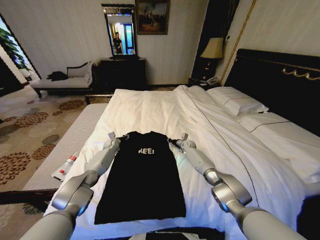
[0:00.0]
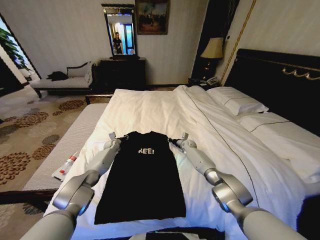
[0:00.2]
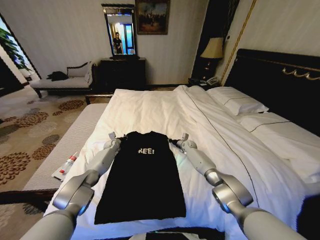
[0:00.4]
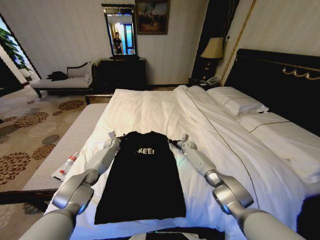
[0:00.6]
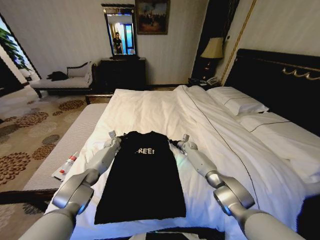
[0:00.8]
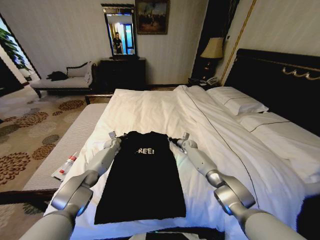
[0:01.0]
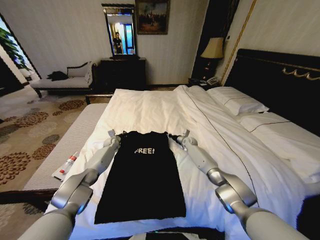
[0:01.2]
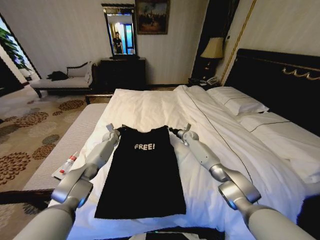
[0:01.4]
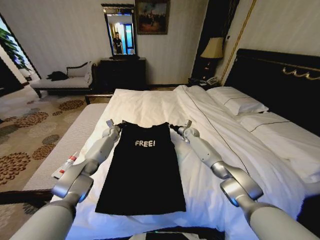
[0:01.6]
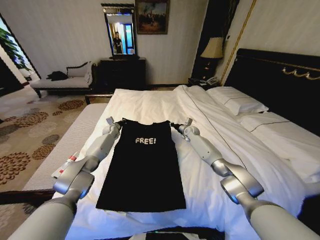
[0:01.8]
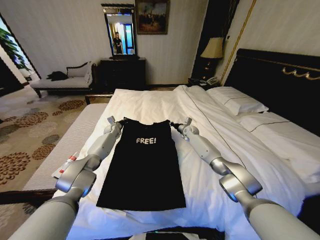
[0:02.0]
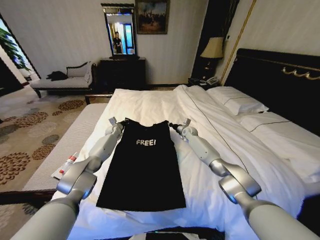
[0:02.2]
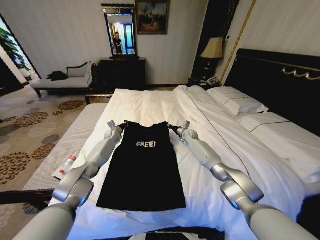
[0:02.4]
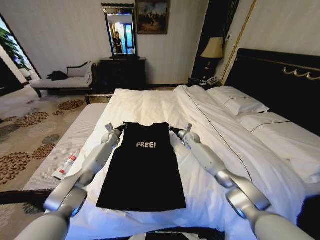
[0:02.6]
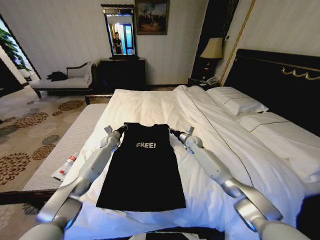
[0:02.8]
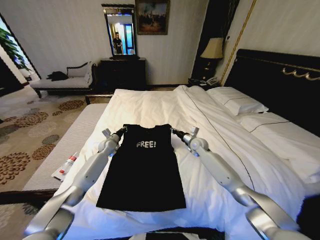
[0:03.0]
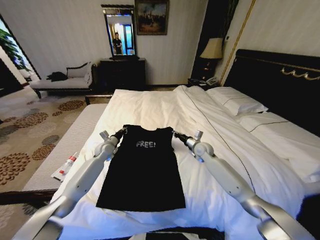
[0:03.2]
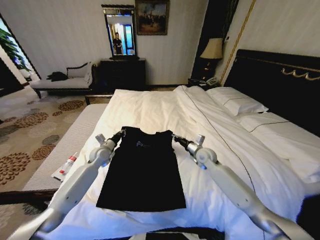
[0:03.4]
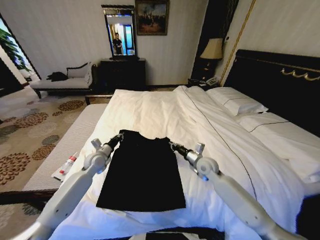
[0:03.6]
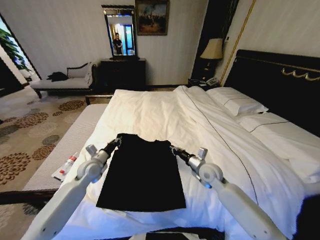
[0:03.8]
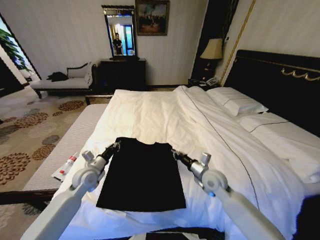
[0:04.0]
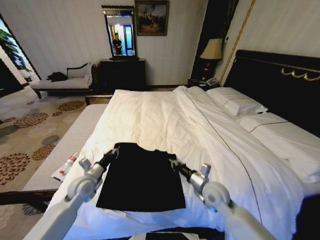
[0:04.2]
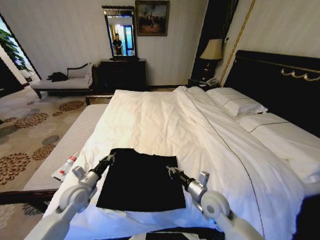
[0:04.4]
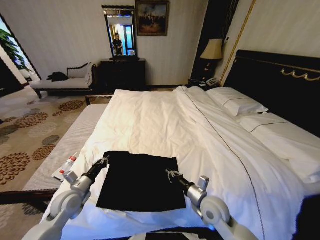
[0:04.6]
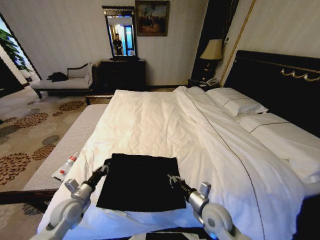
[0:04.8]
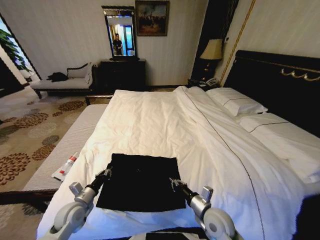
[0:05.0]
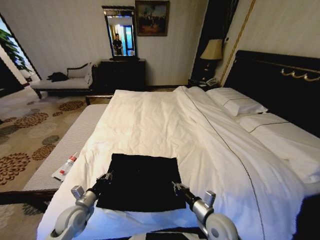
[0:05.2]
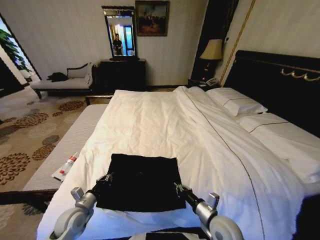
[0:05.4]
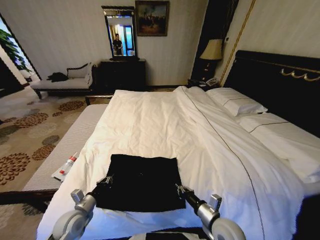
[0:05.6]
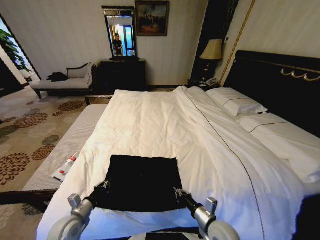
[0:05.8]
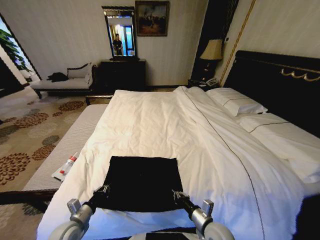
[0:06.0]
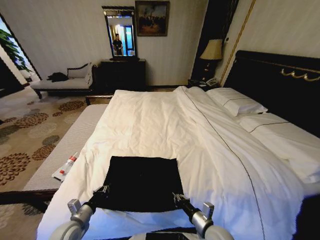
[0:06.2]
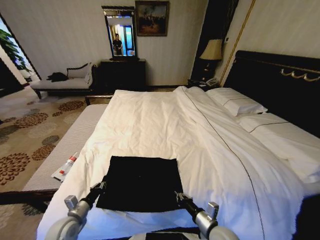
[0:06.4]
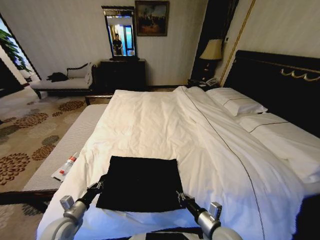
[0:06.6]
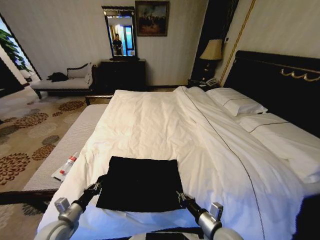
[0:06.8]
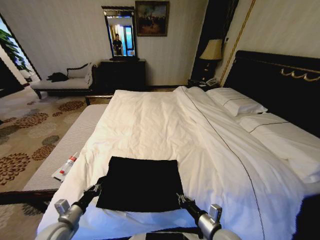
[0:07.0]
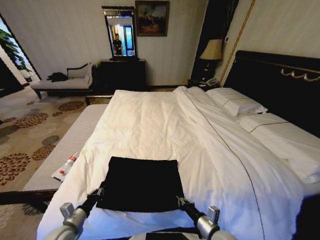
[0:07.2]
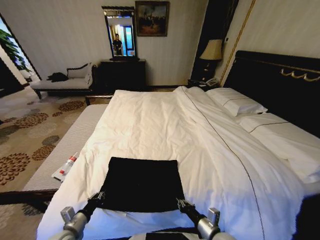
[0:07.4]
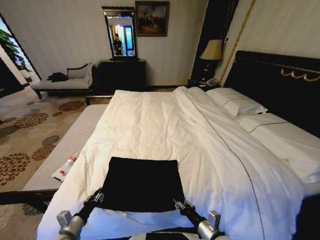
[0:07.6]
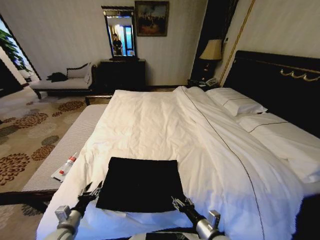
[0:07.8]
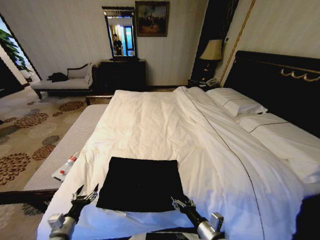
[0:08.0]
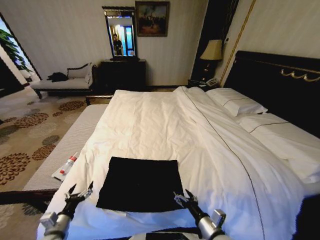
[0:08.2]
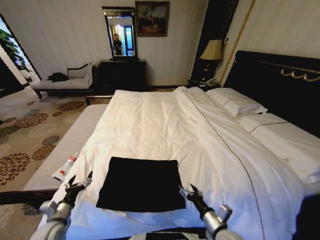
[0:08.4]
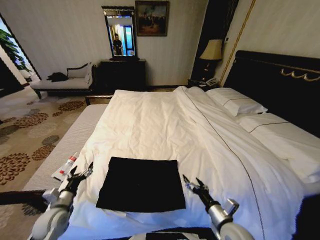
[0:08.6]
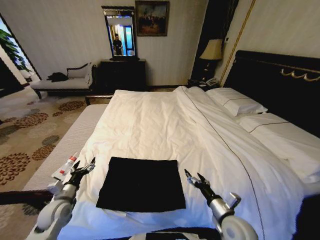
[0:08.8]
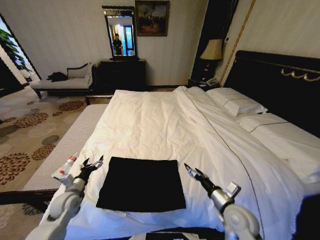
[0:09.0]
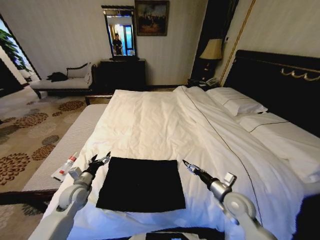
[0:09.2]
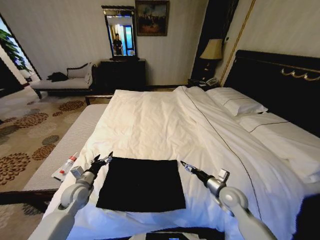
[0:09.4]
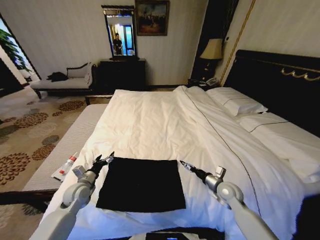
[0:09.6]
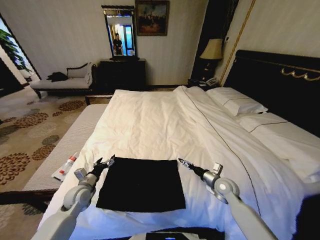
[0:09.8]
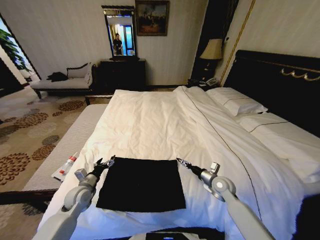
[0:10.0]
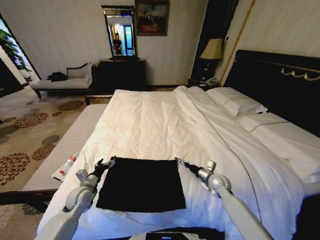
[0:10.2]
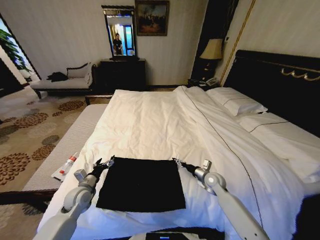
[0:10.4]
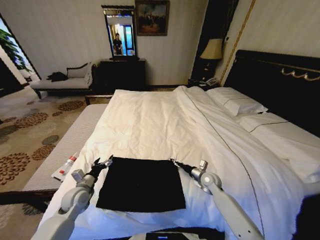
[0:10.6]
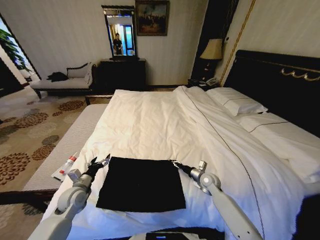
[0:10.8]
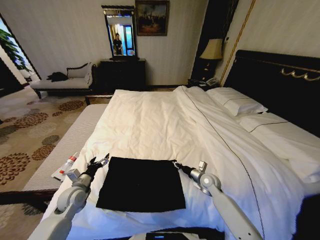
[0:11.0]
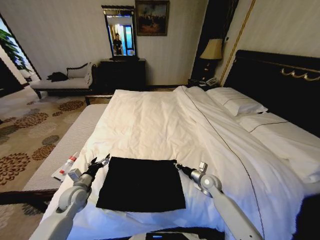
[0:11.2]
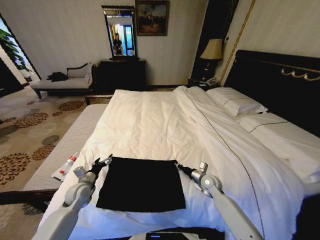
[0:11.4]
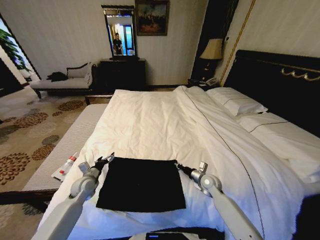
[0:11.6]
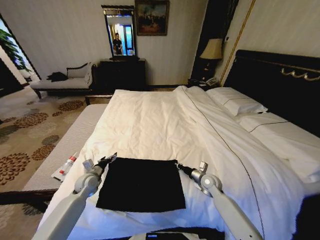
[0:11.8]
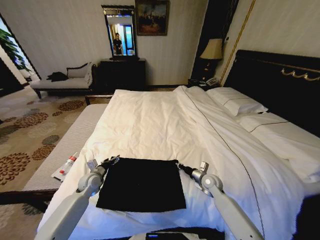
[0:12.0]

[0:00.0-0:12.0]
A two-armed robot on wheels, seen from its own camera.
Task of the whole recording: Fold the clothes on the bed.
0:00.0 to 0:01.6: The two grippers go some 10 cm upward. The left gripper closes its fingers.
0:01.6 to 0:03.0: Both grippers travel together backward, some 10 cm.
0:03.0 to 0:04.4: Both grippers travel together backward, approximately 30 cm.
0:04.4 to 0:06.0: The grippers both shift backward and downward by approximately 10 cm.
0:06.0 to 0:07.6: The grippers make only small movements.
0:07.6 to 0:09.0: The right gripper shifts approximately 10 cm forward, upward and to the right, and opens. Meanwhile the left gripper goes some 15 cm forward, and opens.
0:09.0 to 0:10.4: The right gripper goes roughly 15 cm forward and downward.
0:10.4 to 0:12.0: The right gripper closes its fingers; the left gripper heads forward, covering some 10 cm.

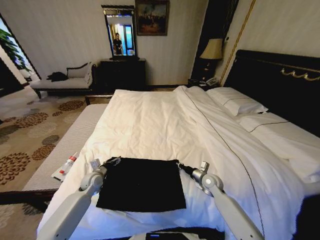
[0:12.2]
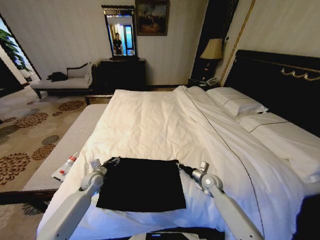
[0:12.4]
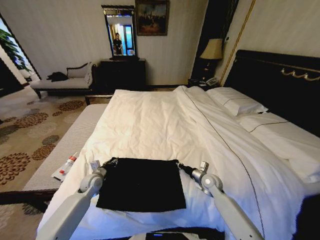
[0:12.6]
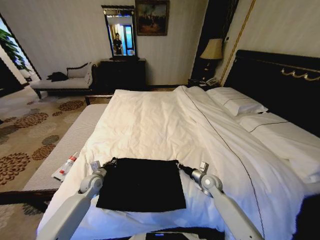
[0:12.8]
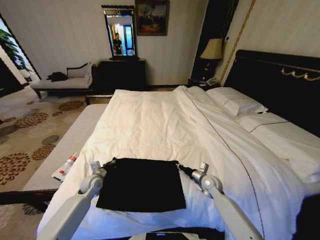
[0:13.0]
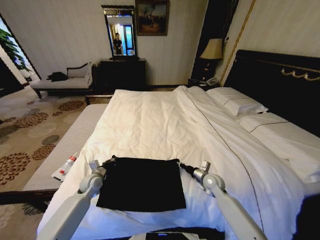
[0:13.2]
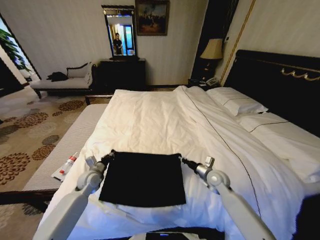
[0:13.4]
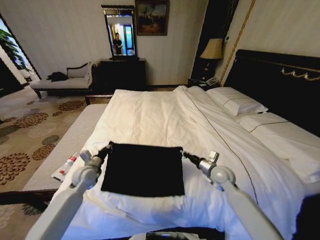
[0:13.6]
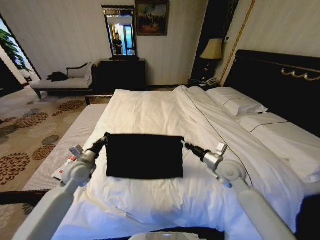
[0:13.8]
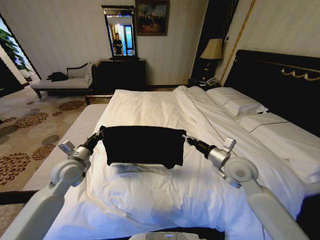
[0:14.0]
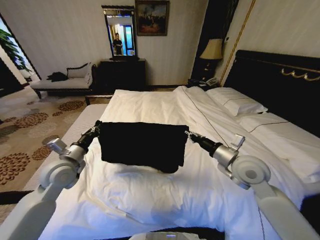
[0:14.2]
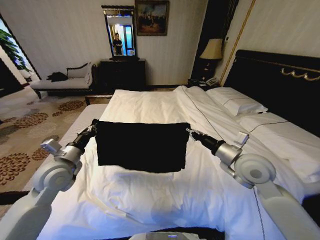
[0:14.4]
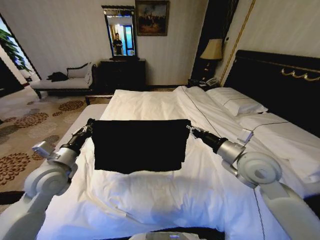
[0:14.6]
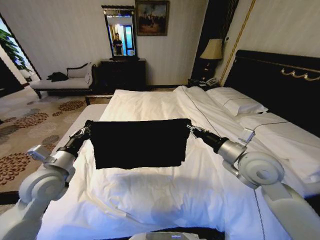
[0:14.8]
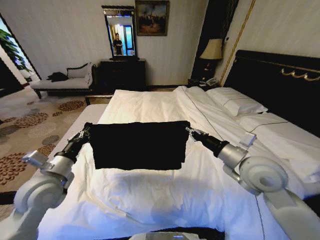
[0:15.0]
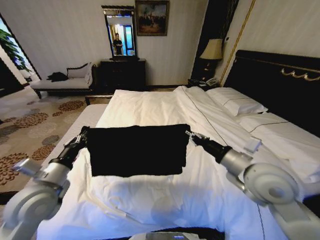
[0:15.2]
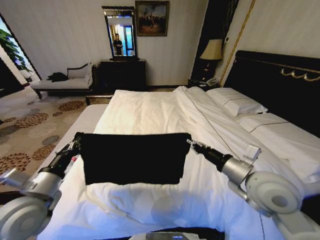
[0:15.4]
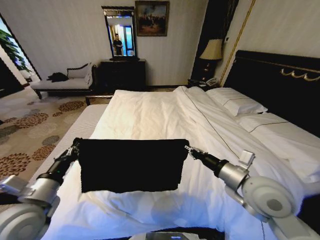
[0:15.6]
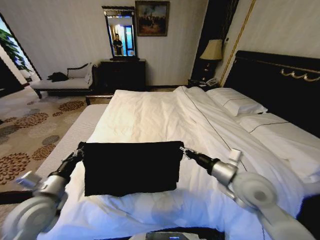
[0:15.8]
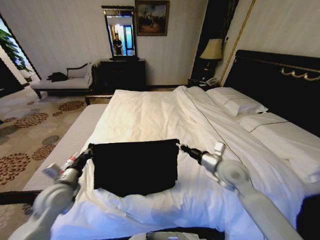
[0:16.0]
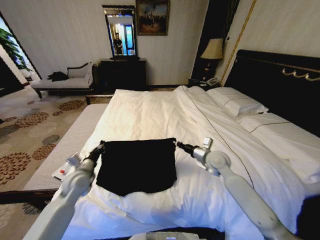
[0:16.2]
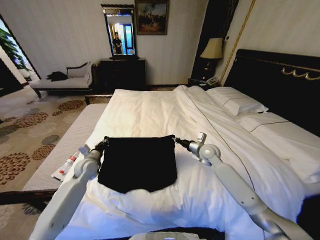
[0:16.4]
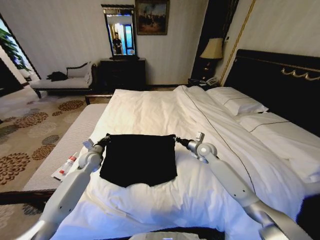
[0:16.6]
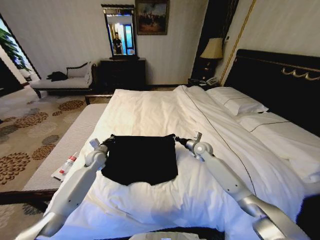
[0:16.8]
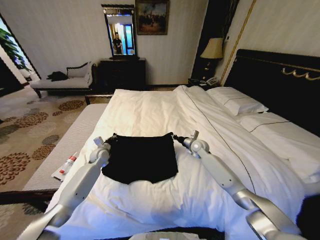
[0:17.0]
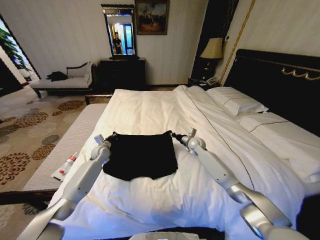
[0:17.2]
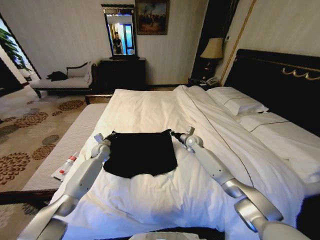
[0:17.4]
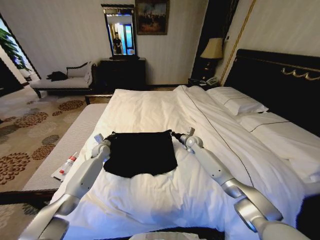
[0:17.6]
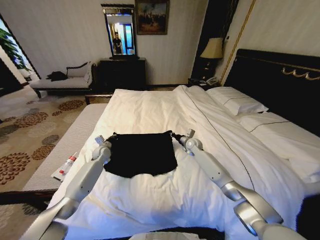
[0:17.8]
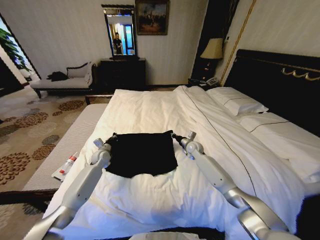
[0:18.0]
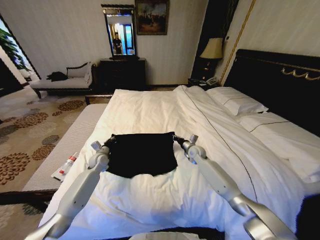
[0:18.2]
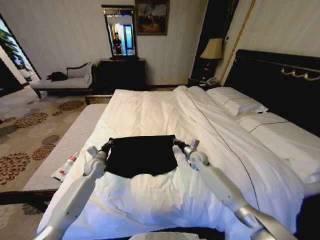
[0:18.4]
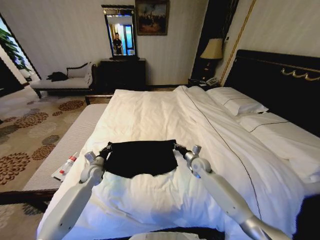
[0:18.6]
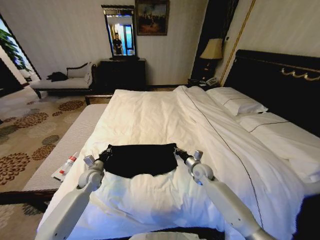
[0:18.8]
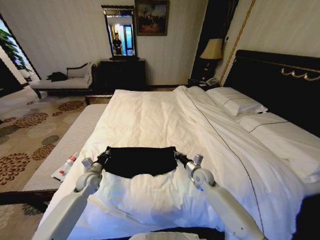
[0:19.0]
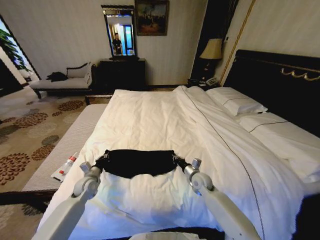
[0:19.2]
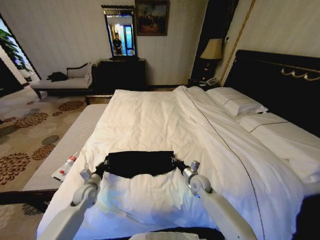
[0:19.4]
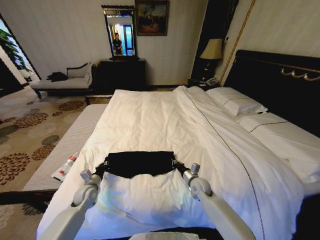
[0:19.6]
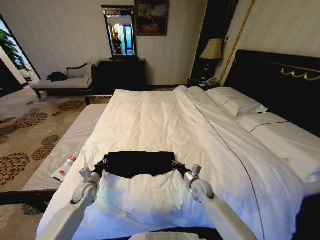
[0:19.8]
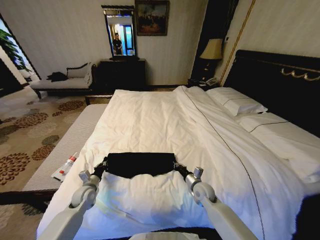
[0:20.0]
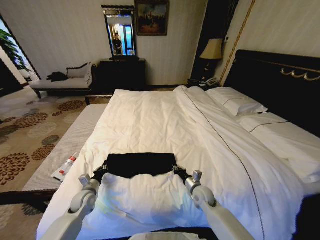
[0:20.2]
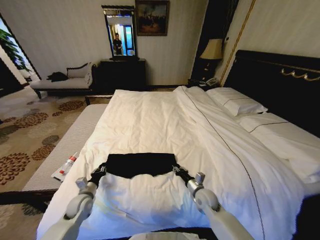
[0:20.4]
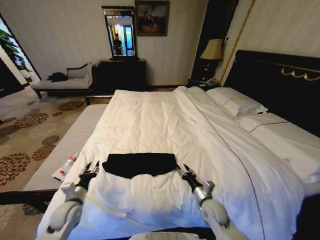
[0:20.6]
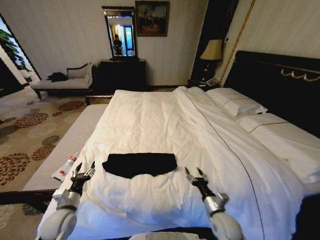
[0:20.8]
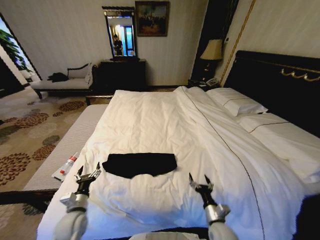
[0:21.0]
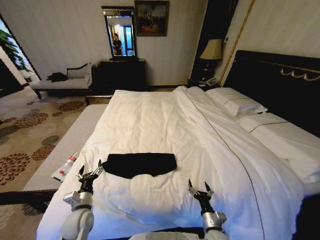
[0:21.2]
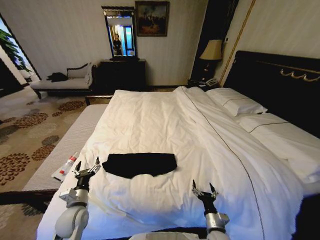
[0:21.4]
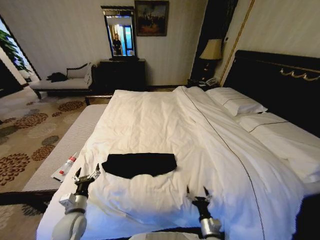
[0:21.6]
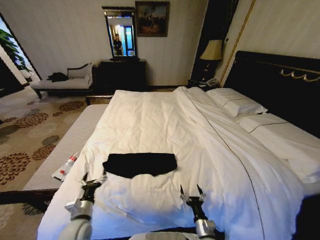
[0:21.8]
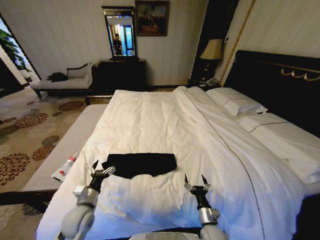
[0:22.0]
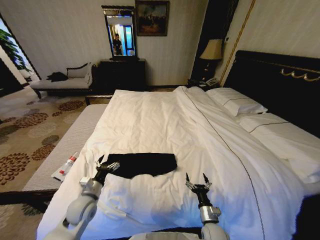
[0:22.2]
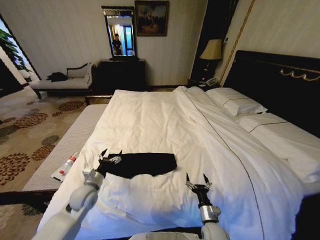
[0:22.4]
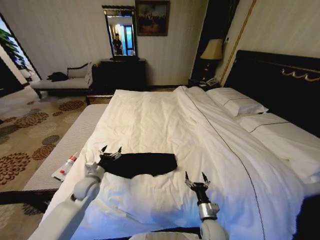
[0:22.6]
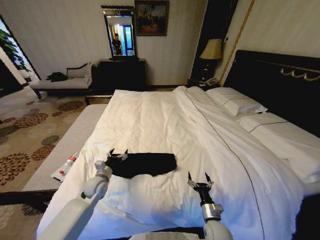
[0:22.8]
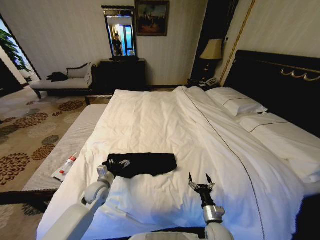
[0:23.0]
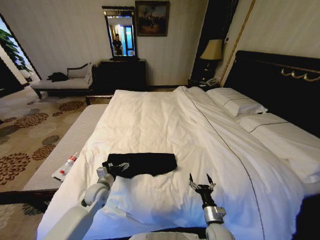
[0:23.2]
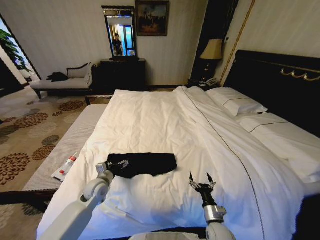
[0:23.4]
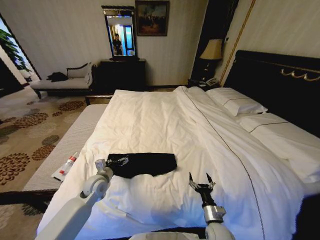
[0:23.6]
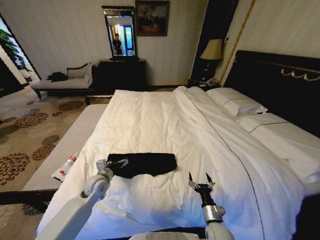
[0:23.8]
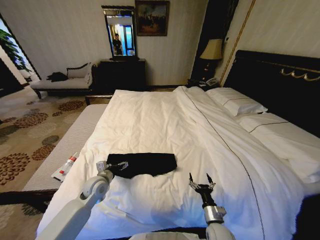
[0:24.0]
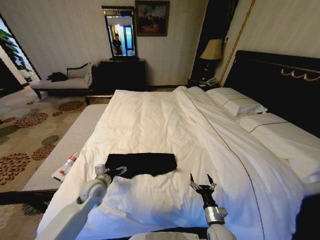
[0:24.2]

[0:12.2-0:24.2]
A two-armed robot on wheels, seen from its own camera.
Task of the whole recording: Fold the clothes on the bed.
0:12.2 to 0:13.8: The two grippers go some 15 cm upward. The left gripper closes up.
0:13.8 to 0:15.2: The left gripper heads backward and upward, covering roughly 15 cm; the right gripper heads upward and backward, covering about 15 cm.
0:15.2 to 0:16.6: The two grippers go roughly 30 cm forward and downward.
0:16.6 to 0:18.2: The right gripper heads downward, covering some 5 cm, and goes forward and returns, approximately 10 cm each way, while the left gripper goes forward and returns, about 10 cm each way.
0:18.2 to 0:19.8: Both grippers move backward, roughly 15 cm.
0:19.8 to 0:21.2: The left gripper is displaced backward by some 10 cm, and opens up, while the right gripper travels backward by approximately 20 cm, and opens its fingers.
0:21.2 to 0:22.6: The left gripper travels forward by about 10 cm.
